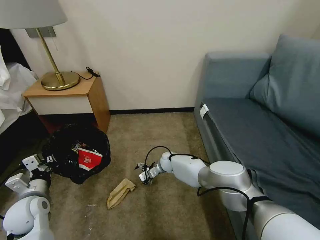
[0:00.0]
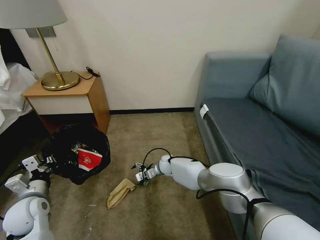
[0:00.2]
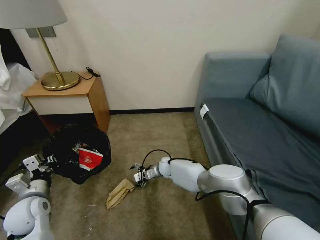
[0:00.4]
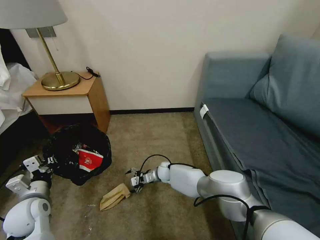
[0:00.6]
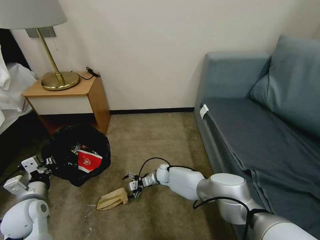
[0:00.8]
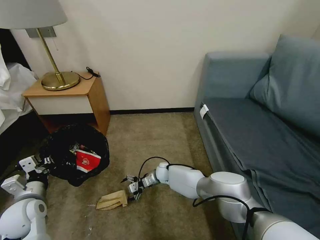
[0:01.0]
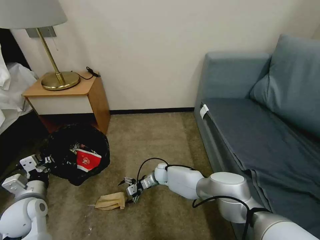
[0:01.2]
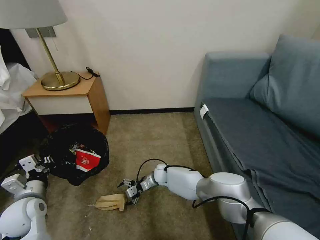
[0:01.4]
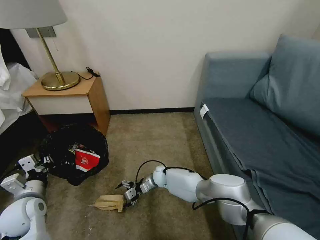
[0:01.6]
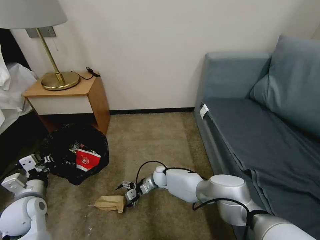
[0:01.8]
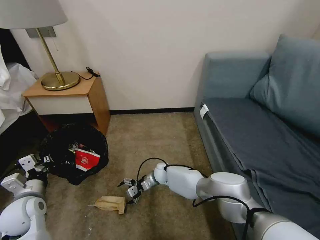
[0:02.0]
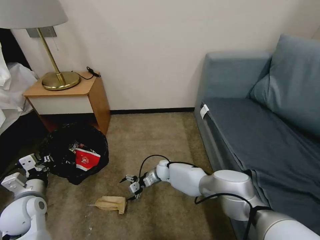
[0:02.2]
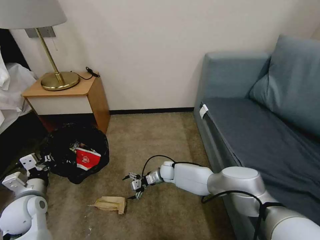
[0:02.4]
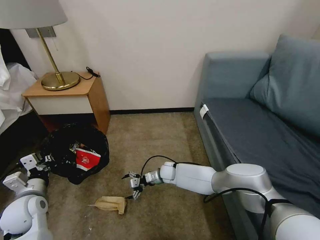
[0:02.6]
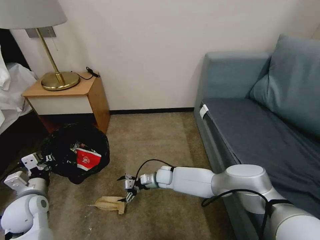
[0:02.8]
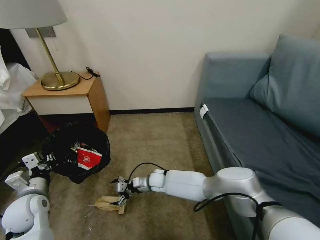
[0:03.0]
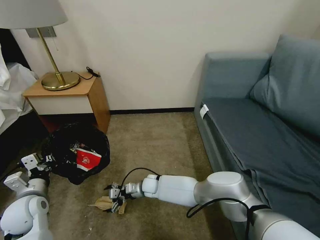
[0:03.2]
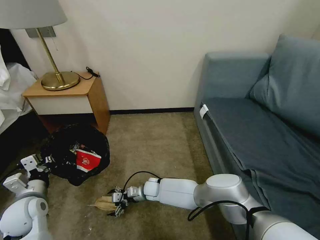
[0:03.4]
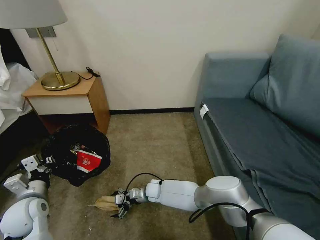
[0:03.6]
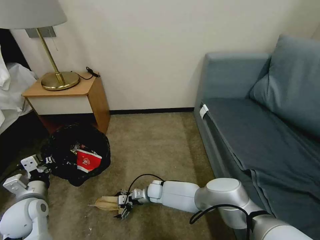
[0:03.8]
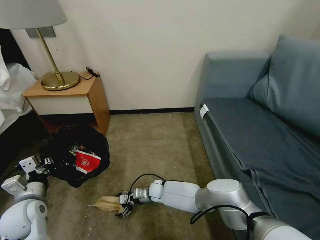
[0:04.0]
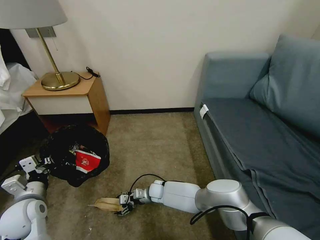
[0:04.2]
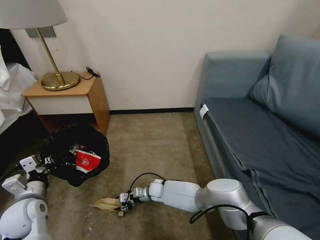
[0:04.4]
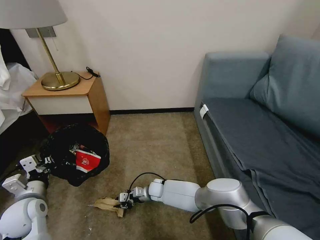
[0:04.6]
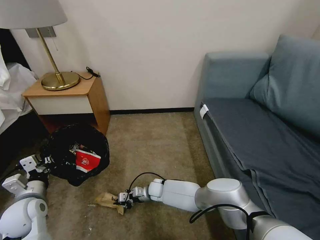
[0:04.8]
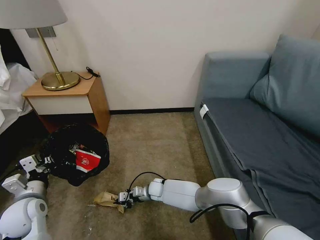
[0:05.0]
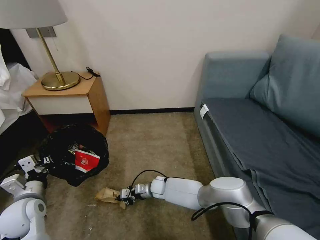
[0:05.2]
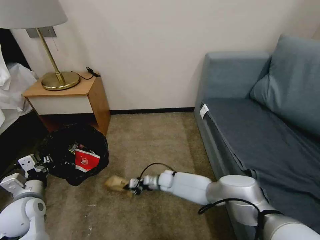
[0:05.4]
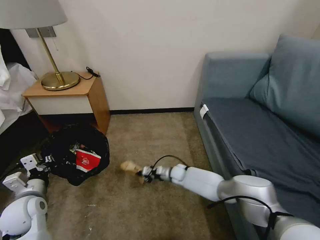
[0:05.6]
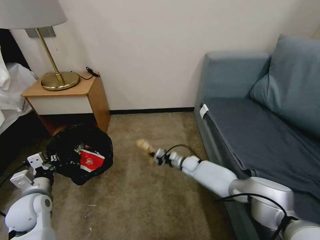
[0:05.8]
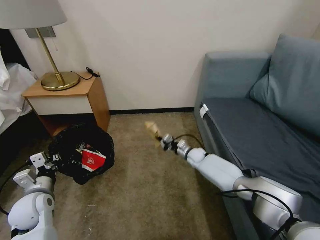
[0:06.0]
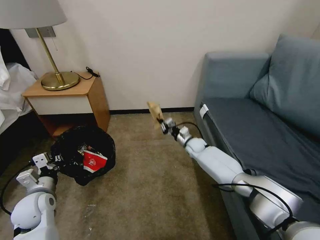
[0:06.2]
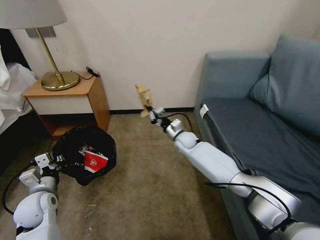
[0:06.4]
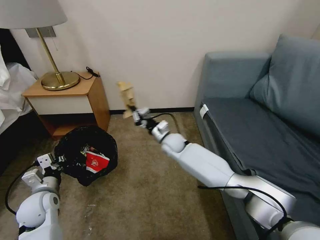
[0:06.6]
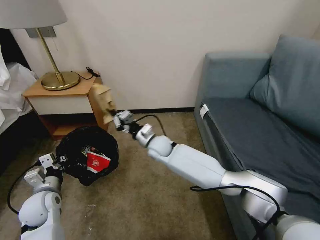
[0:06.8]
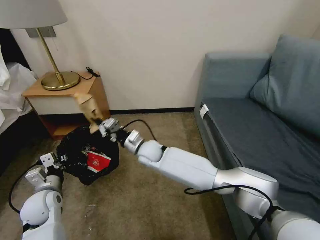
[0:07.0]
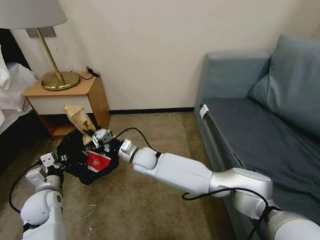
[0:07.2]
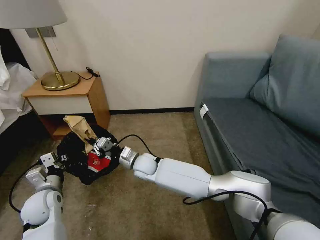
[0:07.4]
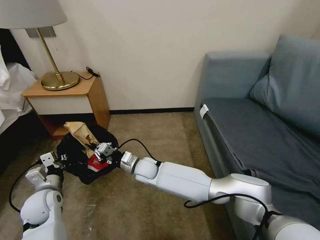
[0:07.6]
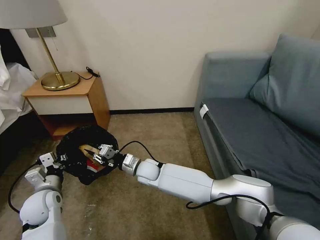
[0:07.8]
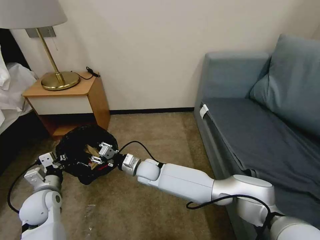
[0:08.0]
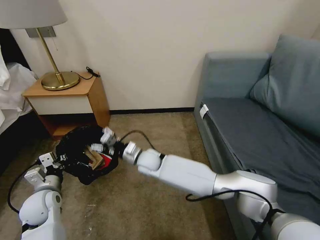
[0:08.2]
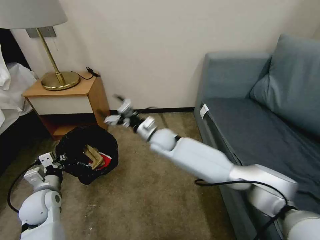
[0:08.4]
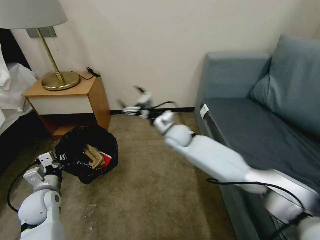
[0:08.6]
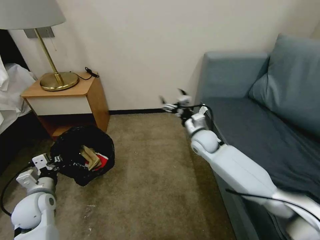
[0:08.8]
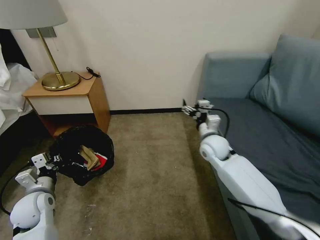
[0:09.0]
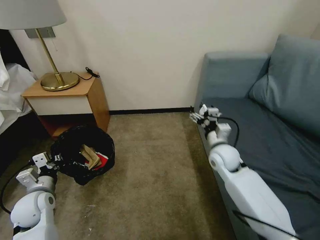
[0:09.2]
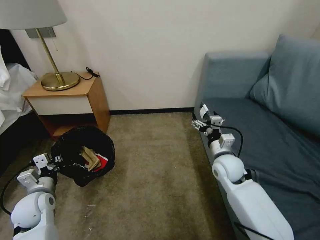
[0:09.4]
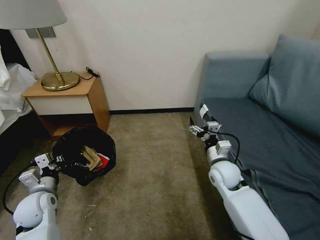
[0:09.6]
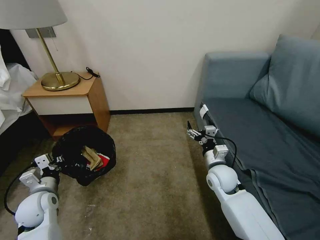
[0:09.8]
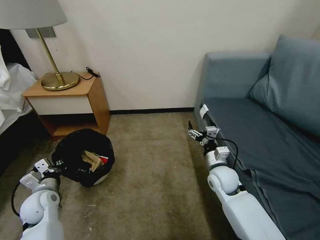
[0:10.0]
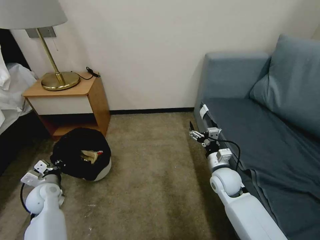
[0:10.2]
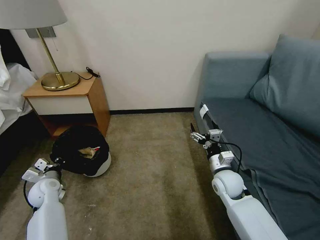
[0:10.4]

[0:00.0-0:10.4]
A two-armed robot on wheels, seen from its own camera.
Task of the whole recording: Pick up the trash bin, then pick up the garbage on the floor and place it into the trash bin.
0:00.0 to 0:01.4: The right gripper shifts about 5 cm backward.
0:01.4 to 0:03.0: The right gripper ends up approximately 5 cm from where it was.
0:03.0 to 0:04.4: The right gripper heads downward, covering approximately 5 cm, and closes up.
0:04.4 to 0:06.0: The right gripper goes some 25 cm to the right, forward and upward, and closes up.
0:06.0 to 0:07.4: The right gripper is displaced to the left and backward by approximately 30 cm.
0:07.4 to 0:09.0: The right gripper is displaced to the right by approximately 25 cm, and opens its fingers.
0:09.0 to 0:10.4: The right gripper moves backward and downward, some 15 cm; the left gripper is displaced forward and downward by about 10 cm.

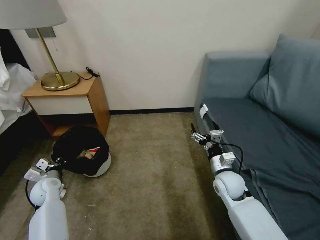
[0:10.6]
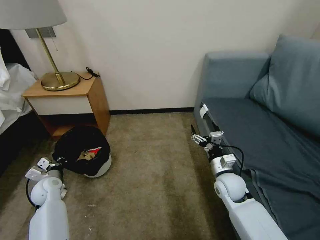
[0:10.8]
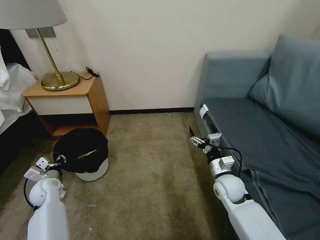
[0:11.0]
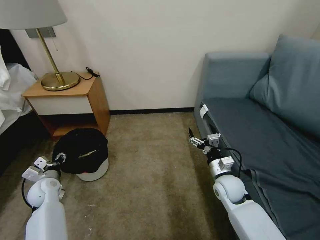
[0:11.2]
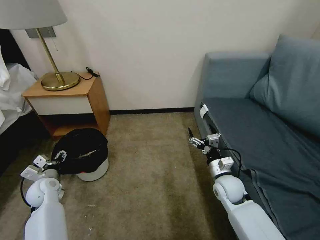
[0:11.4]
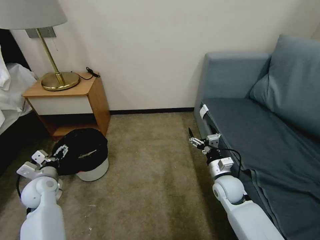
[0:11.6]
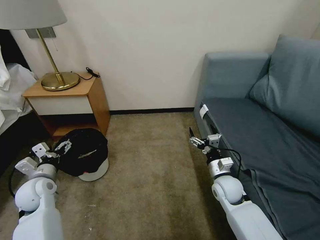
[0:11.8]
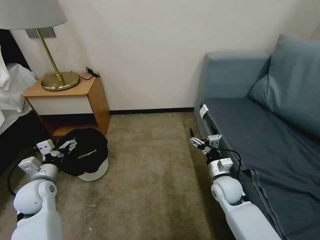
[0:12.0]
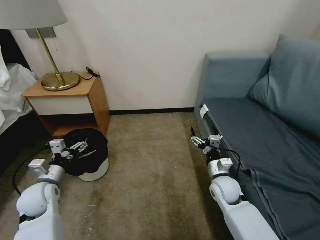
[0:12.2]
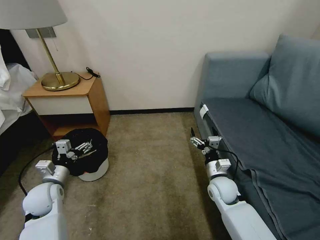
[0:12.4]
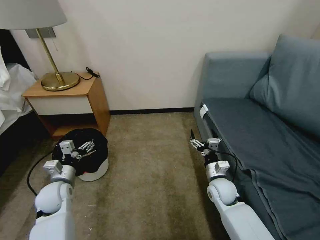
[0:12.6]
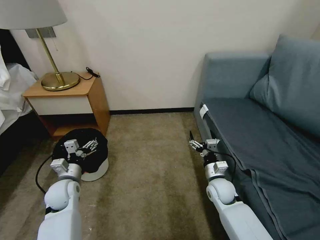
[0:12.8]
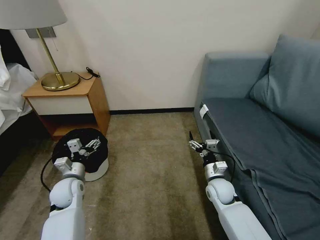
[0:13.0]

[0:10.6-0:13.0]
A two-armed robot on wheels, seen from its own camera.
Task of the whole recording: Pick up the trash bin, then pick up the garbage on the floor and place it into the trash bin.
0:10.6 to 0:11.8: The left gripper is displaced upward by approximately 10 cm, and opens up.
0:11.8 to 0:13.0: The left gripper goes about 10 cm to the right.
